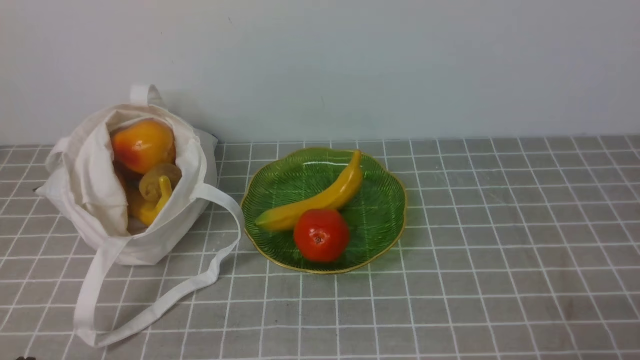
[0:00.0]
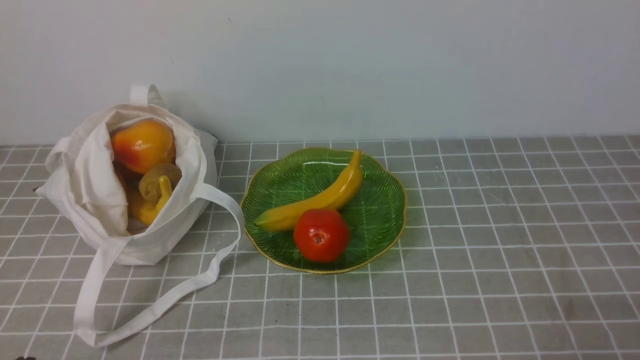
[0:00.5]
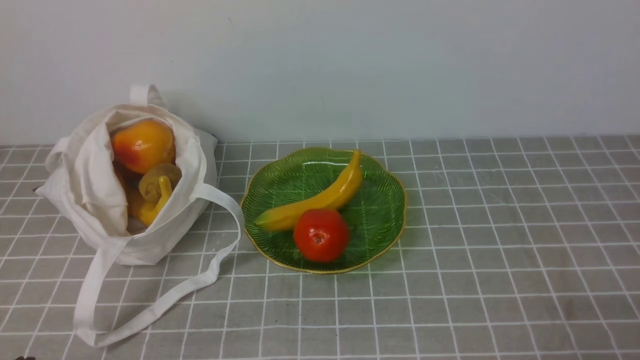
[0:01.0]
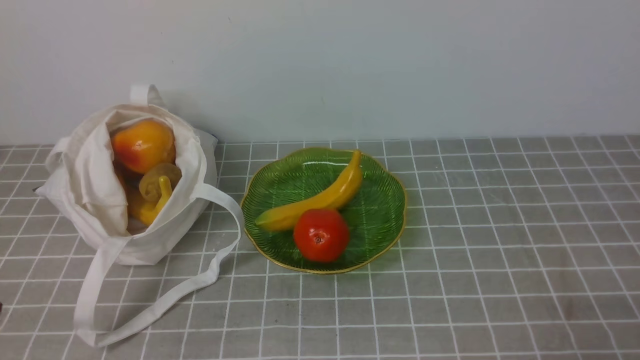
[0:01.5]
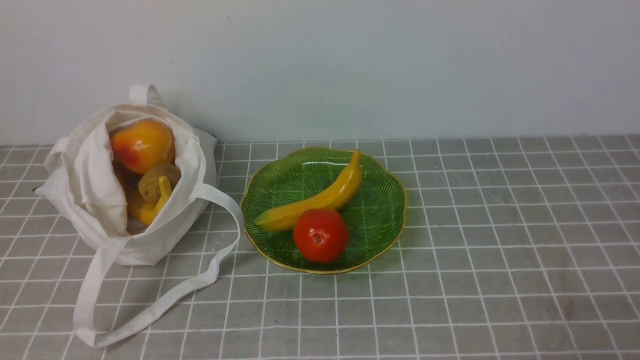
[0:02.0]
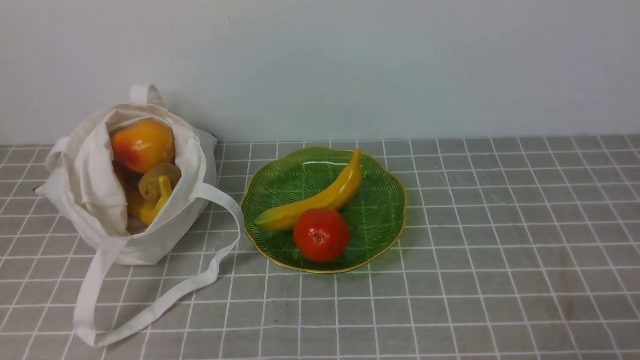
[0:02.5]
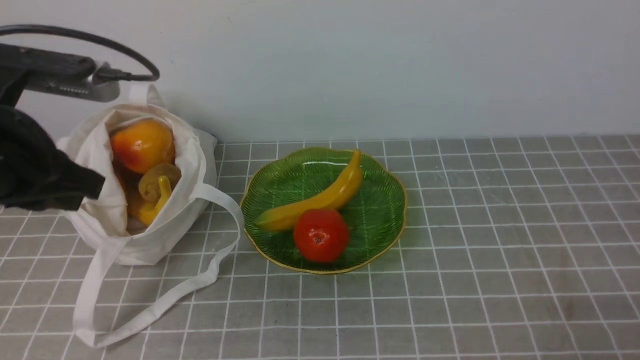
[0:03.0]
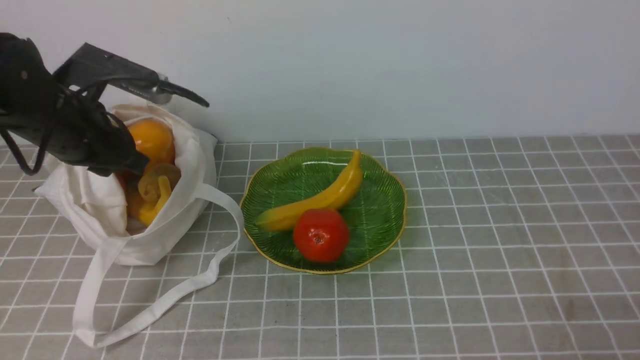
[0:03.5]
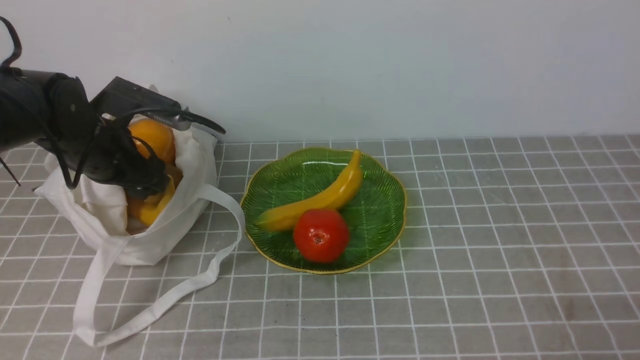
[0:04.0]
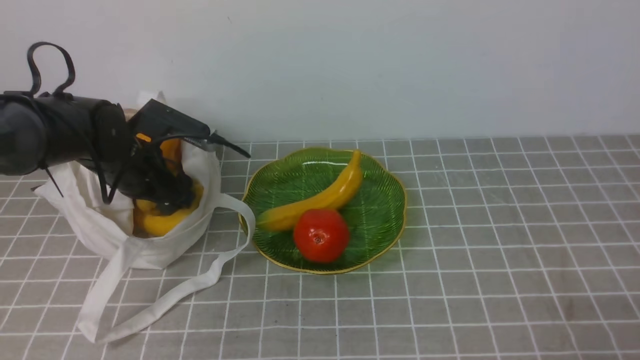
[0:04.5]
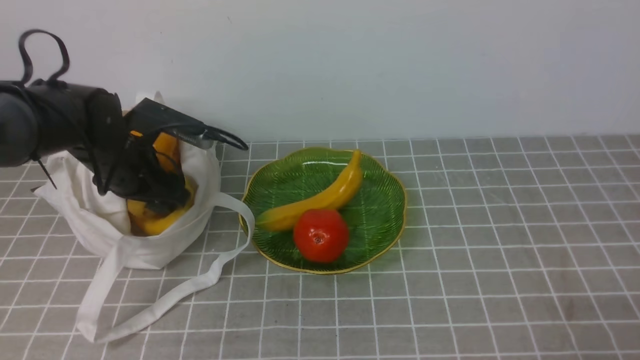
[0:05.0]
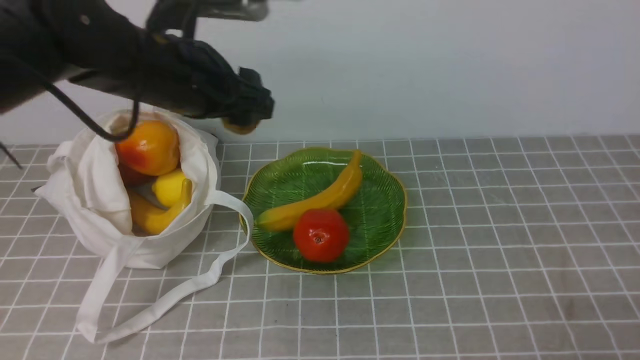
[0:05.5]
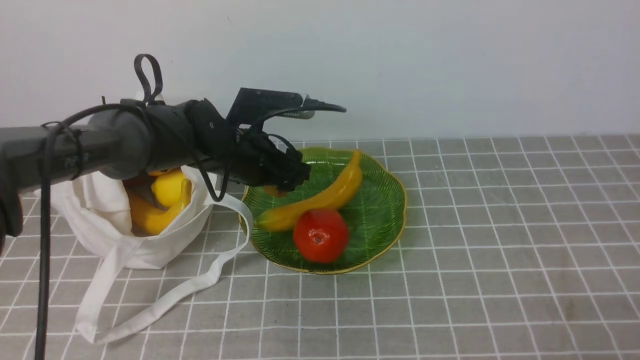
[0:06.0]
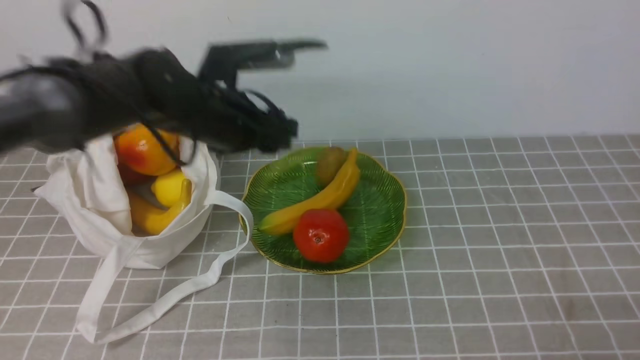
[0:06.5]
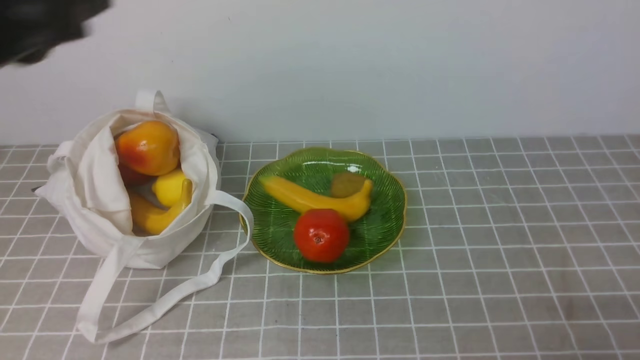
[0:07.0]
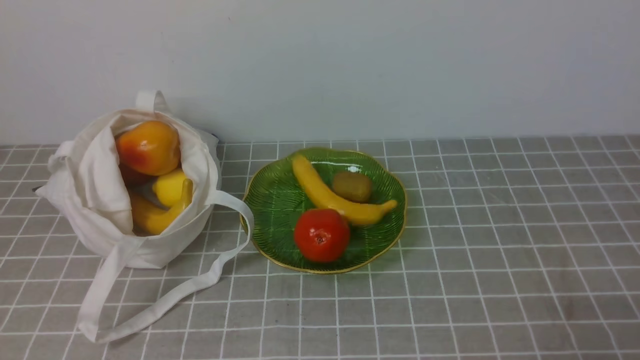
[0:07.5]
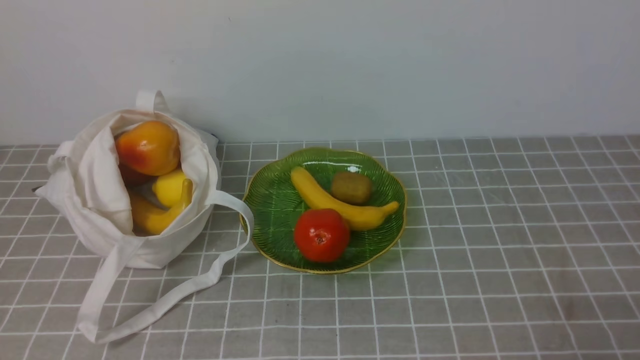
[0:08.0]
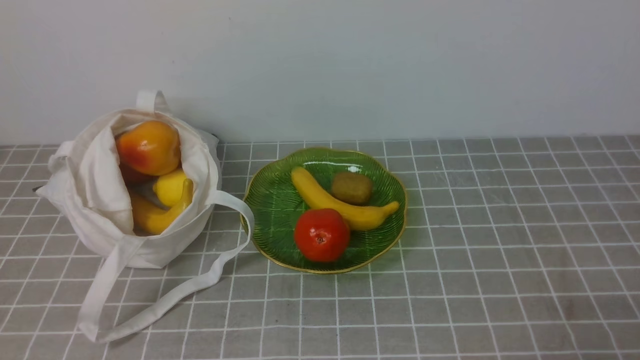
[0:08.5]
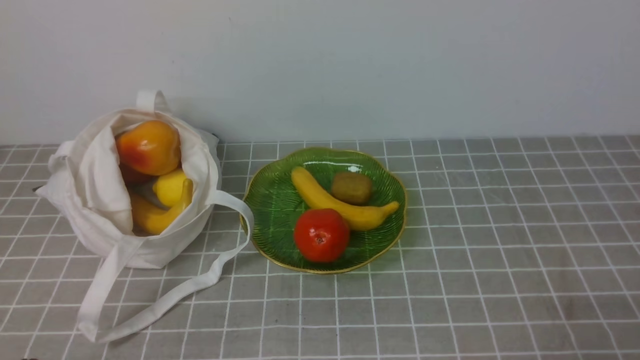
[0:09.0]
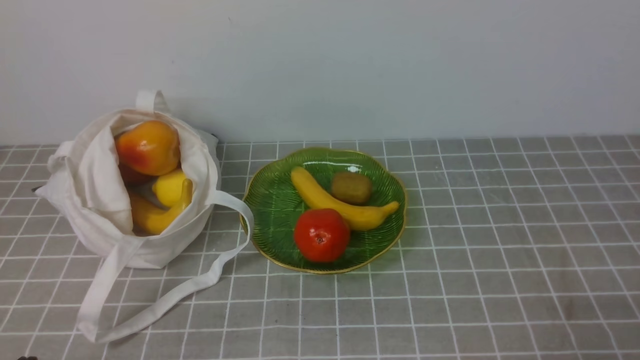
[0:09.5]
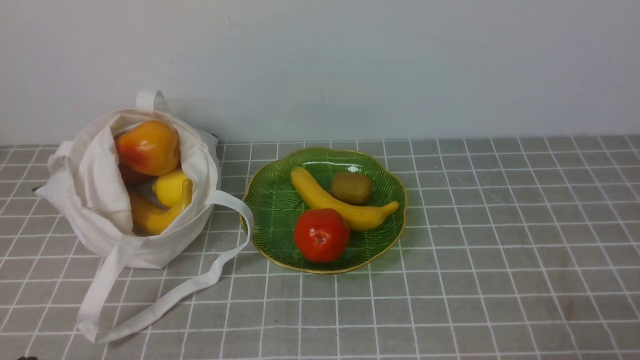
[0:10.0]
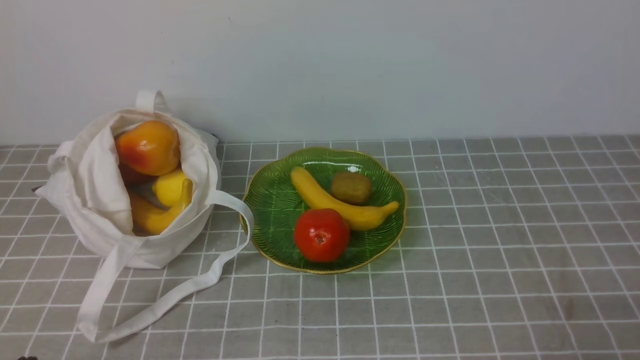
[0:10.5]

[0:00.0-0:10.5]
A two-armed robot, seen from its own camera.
Step, 0:00.0 to 0:04.5: use the left arm to grab a kiwi from the bag.
Step, 0:05.5 to 0:06.0: use the left arm to put the kiwi into the empty plate on the right.
0:02.0 to 0:04.0: The left gripper shifts some 35 cm forward, and opens.
0:04.0 to 0:06.5: The left gripper moves to the right and upward, about 15 cm, and closes up.
0:06.5 to 0:08.5: The left gripper shifts roughly 35 cm backward, and closes.
